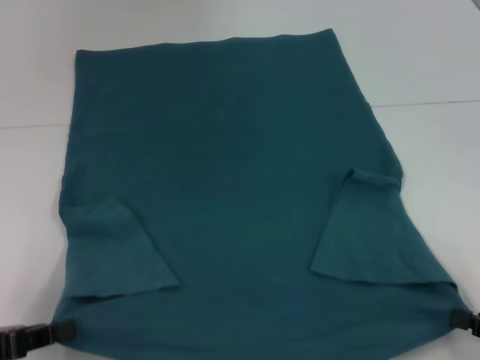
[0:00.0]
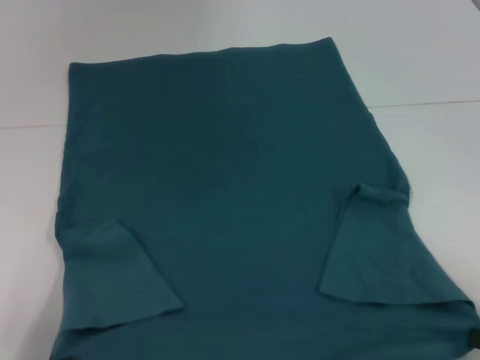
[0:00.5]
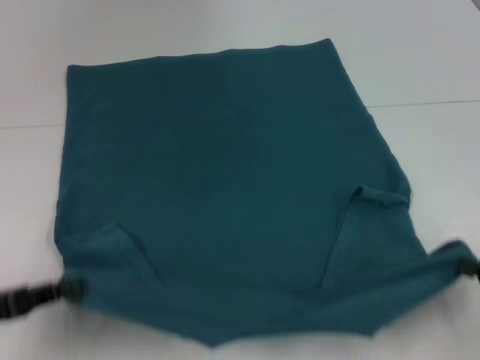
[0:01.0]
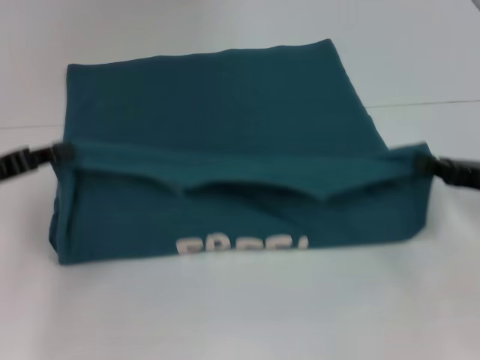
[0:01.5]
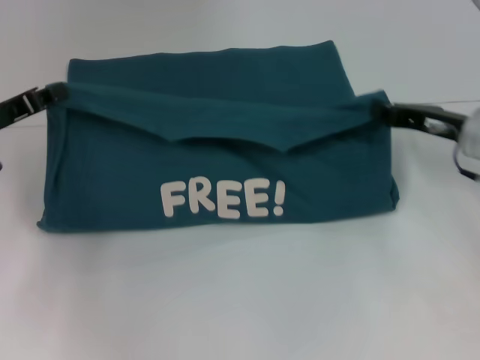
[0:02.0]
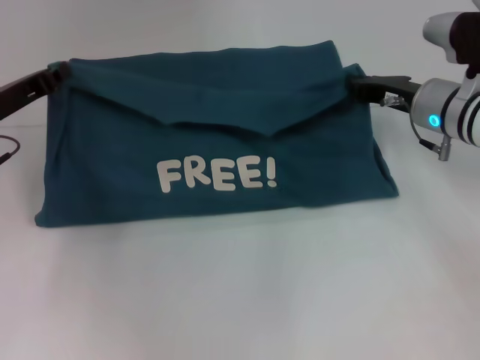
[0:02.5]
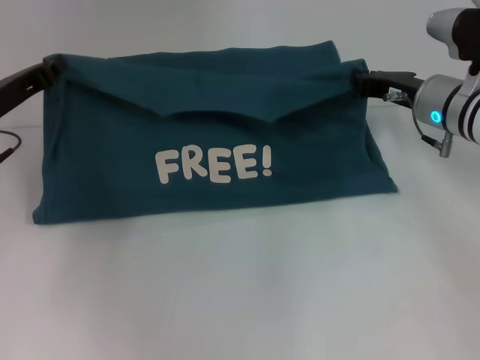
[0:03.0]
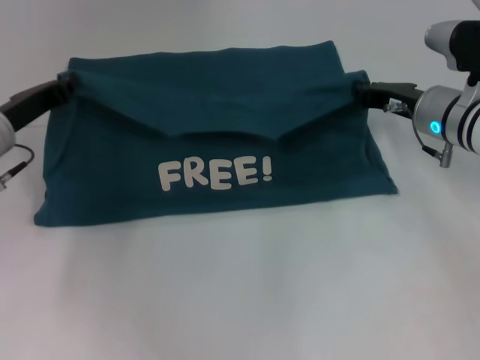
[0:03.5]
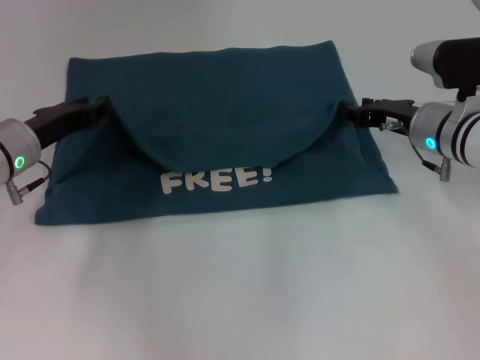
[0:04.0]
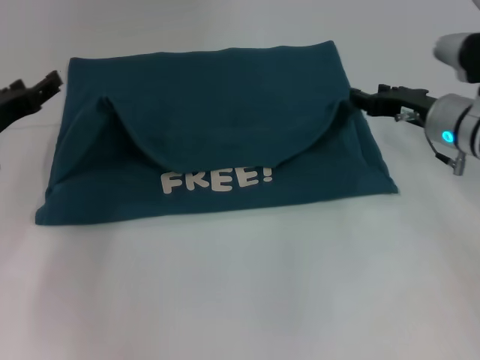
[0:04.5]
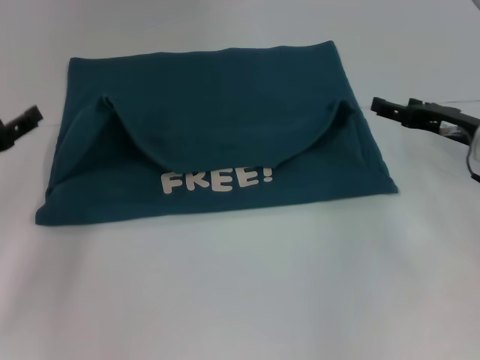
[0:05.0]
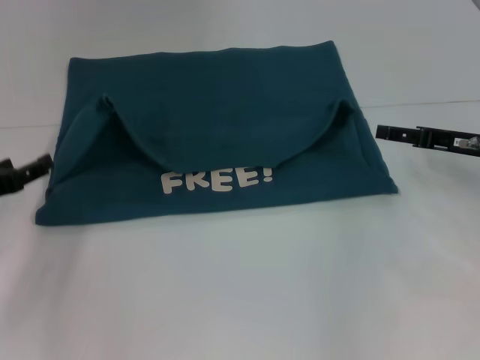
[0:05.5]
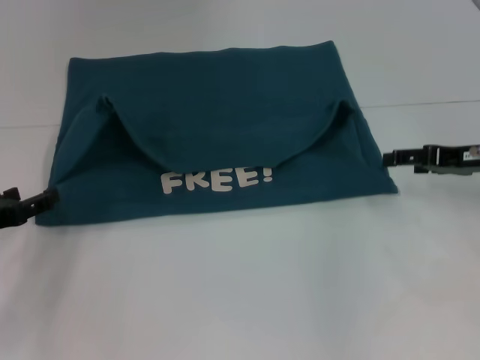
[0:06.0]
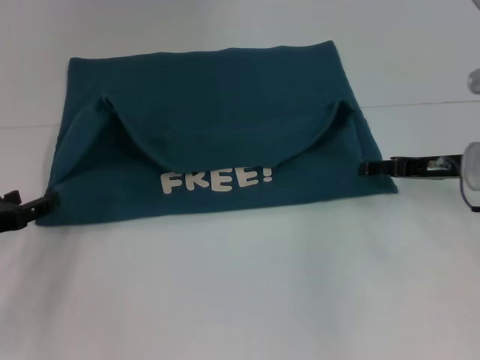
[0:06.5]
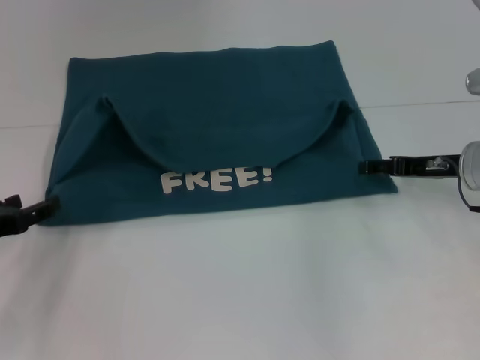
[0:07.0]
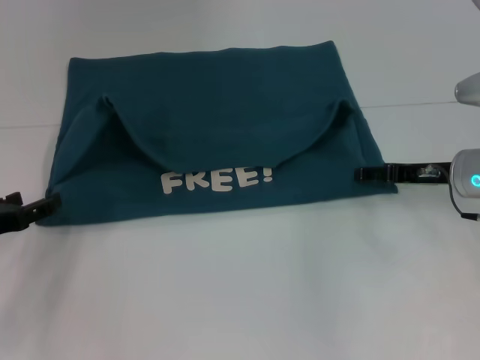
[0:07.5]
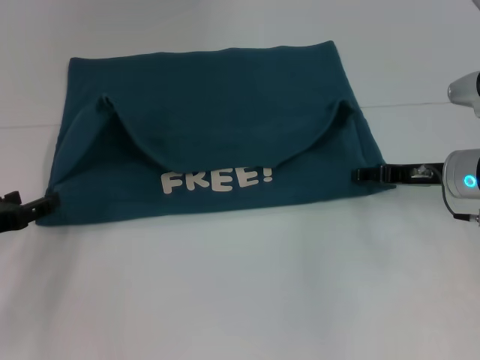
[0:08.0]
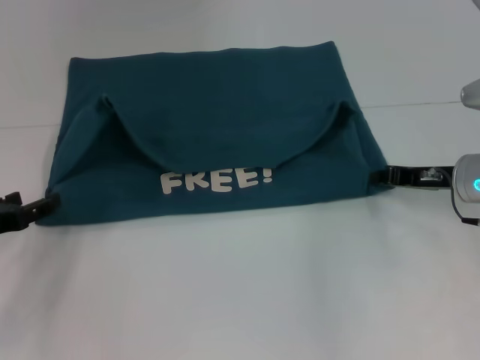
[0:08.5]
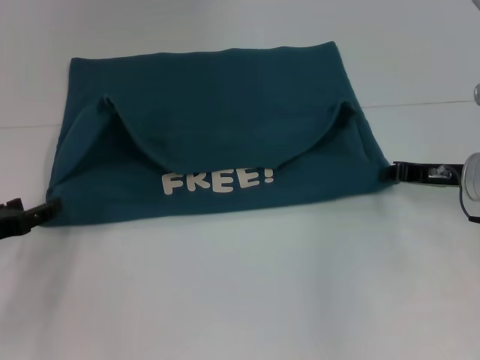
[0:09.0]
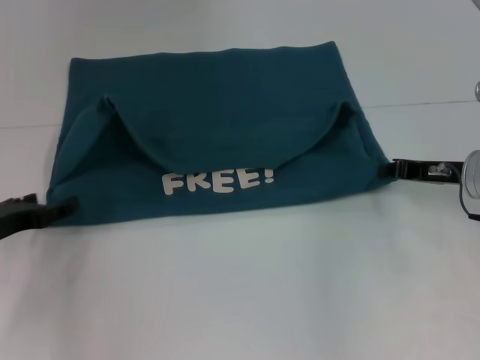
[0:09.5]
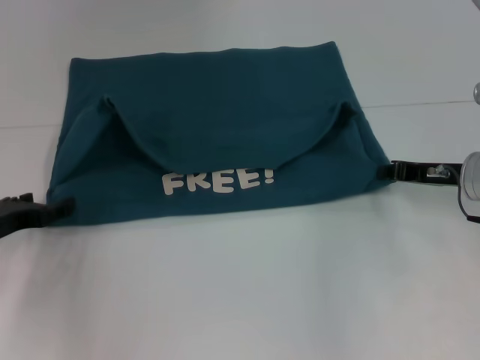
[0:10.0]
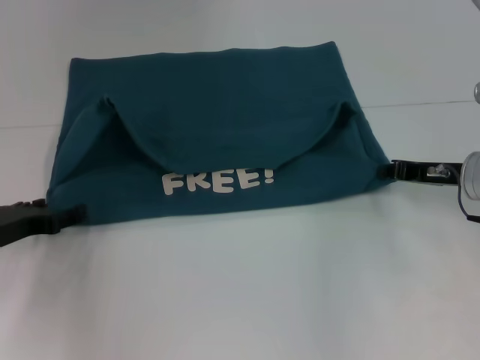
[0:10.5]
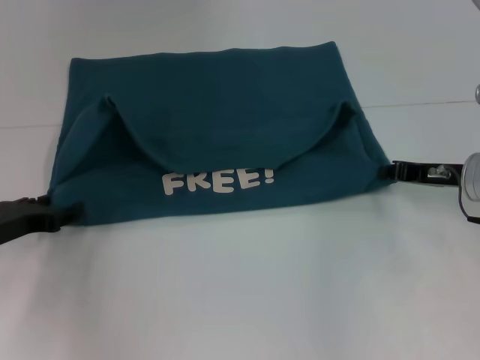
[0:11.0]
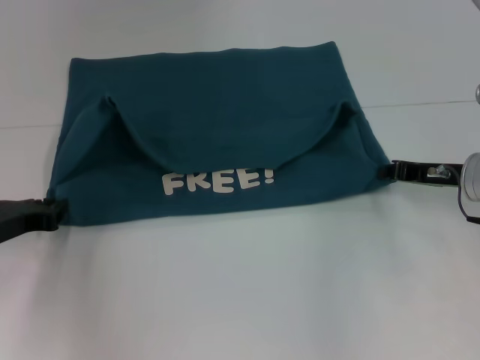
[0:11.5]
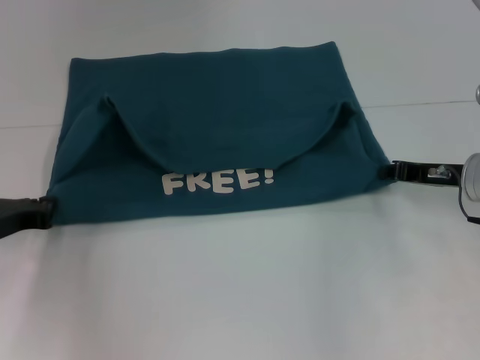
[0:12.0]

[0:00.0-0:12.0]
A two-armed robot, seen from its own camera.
Step, 0:00.0 to 0:04.0: Fold the clothes to the left.
Step, 0:00.0 to 0:04.0: Fold the clothes to the right.
0:00.0 to 0:02.0: The grippers both shift forward by about 20 cm.
0:02.0 to 0:04.0: The right gripper ends up roughly 5 cm from where it was. Meanwhile the left gripper heads to the right, covering about 5 cm.
0:04.0 to 0:06.0: The right gripper travels to the right by approximately 10 cm, and opens. Meanwhile the left gripper goes roughly 15 cm backward and to the left, and opens.
0:06.0 to 0:08.0: The right gripper moves to the left, some 5 cm.
0:08.0 to 0:10.0: The right gripper closes up.

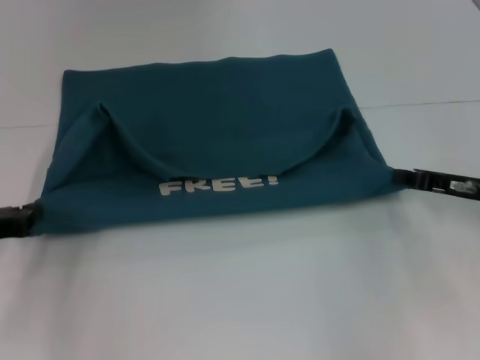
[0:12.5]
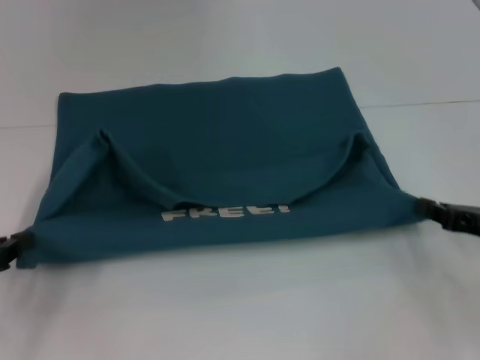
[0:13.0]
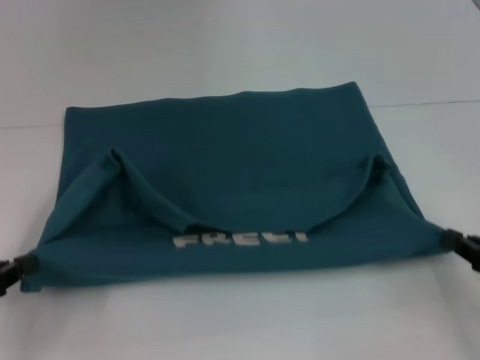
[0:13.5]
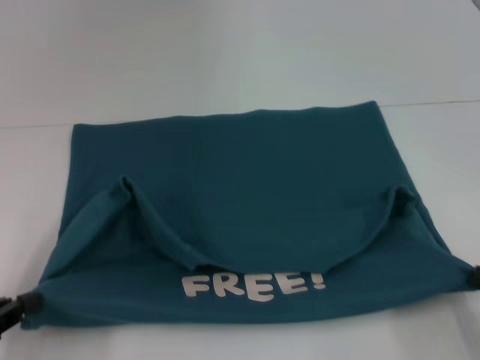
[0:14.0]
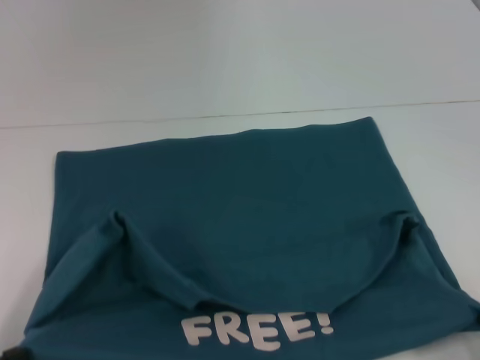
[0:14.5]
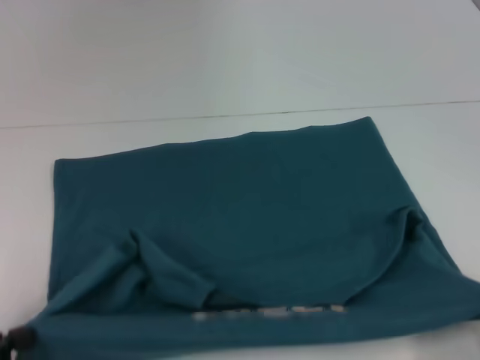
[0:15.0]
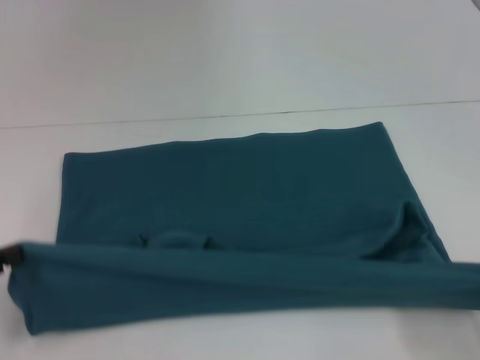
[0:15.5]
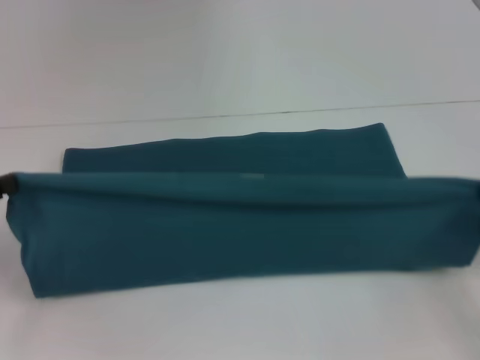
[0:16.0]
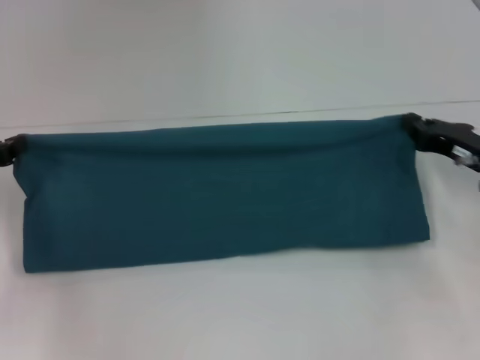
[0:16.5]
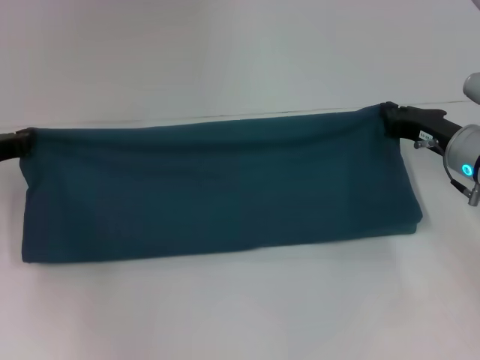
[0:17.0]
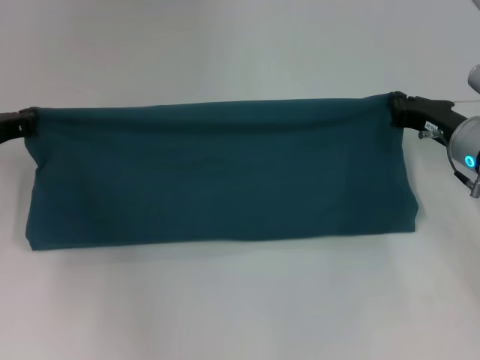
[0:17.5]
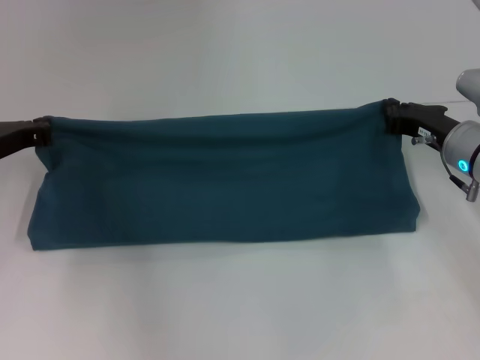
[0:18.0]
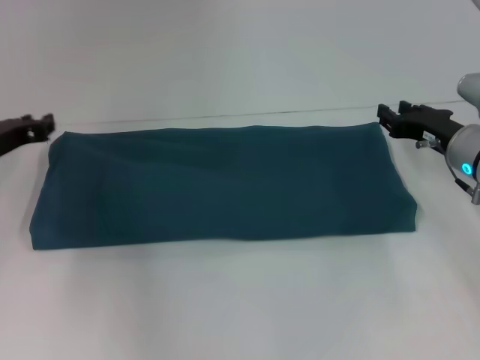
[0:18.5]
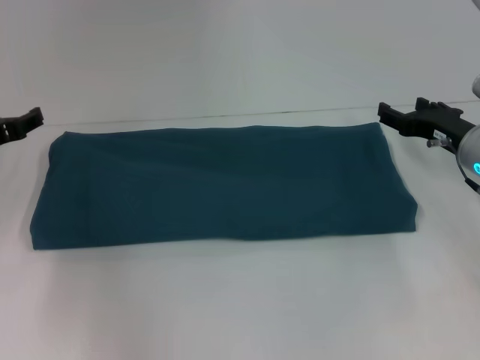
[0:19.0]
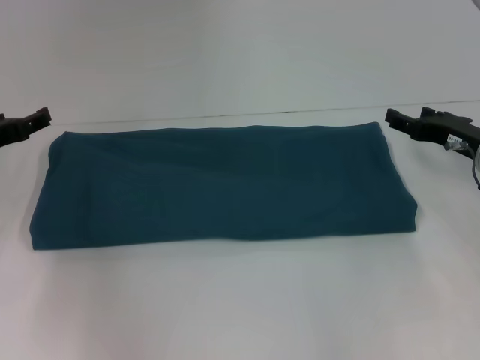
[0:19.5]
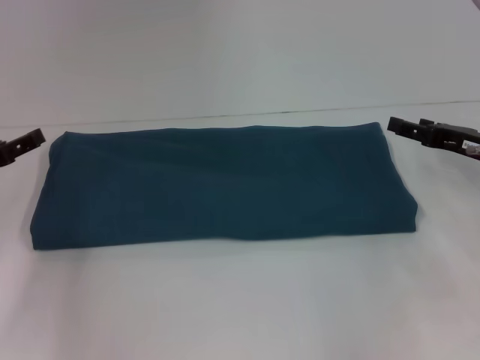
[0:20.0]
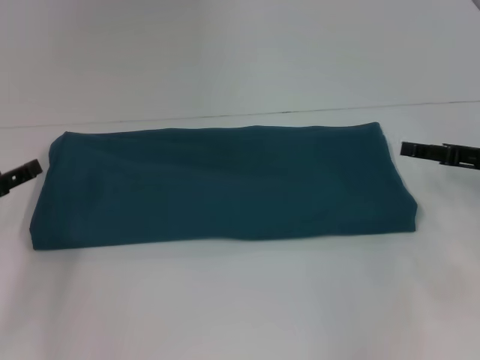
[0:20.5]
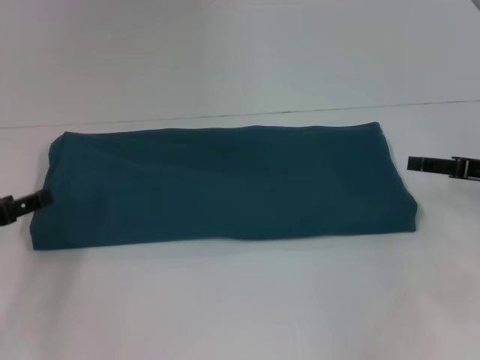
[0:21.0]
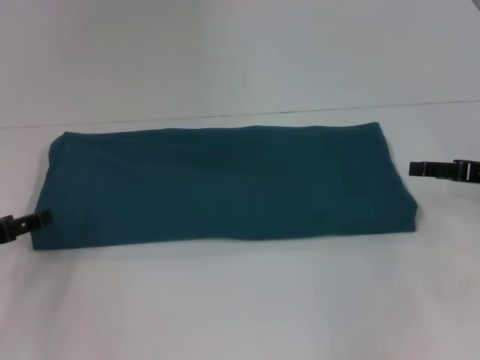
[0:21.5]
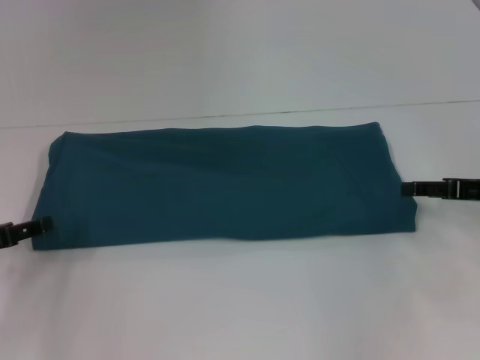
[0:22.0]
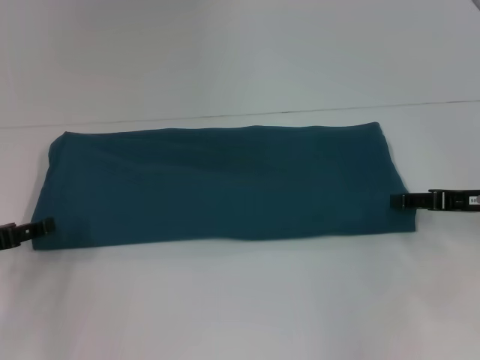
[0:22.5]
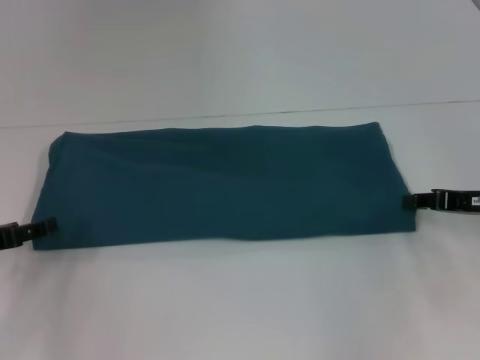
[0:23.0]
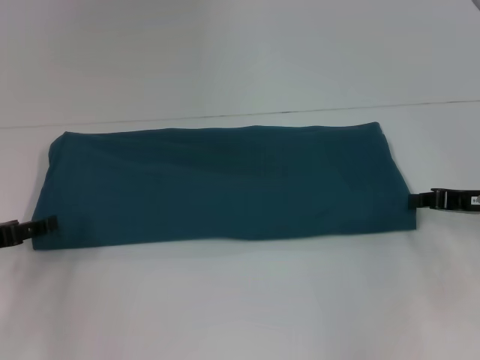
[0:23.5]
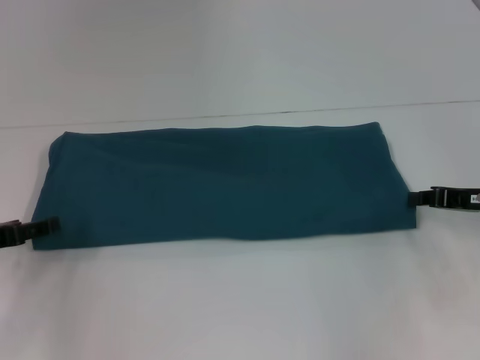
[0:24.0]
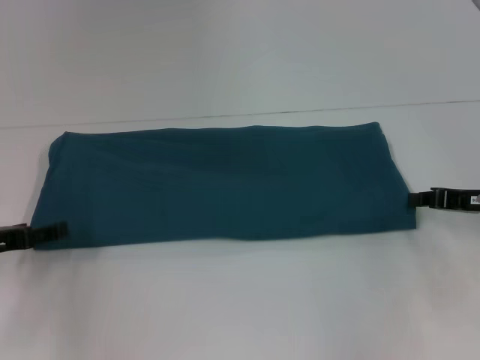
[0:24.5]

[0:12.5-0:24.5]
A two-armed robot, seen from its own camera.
Step, 0:12.5 to 0:14.5: Pull the clothes with your left hand.
Step, 0:12.5 to 0:14.5: Pull the clothes with your right hand.
Step, 0:15.0 to 0:19.0: Fold the clothes to the right.
0:12.5 to 0:14.5: The two grippers go approximately 20 cm backward.
0:14.5 to 0:16.5: Both grippers move forward, roughly 20 cm.
0:16.5 to 0:18.5: The left gripper goes approximately 5 cm to the right; the right gripper shifts by about 5 cm.
0:18.5 to 0:20.5: The right gripper travels to the right by roughly 5 cm, and opens, while the left gripper heads backward and to the left, covering some 10 cm, and opens its fingers.
0:20.5 to 0:22.5: There are only small adjustments of the grippers.

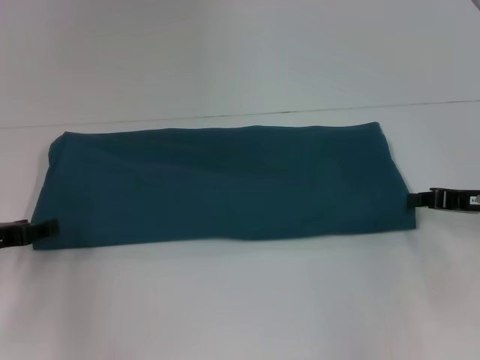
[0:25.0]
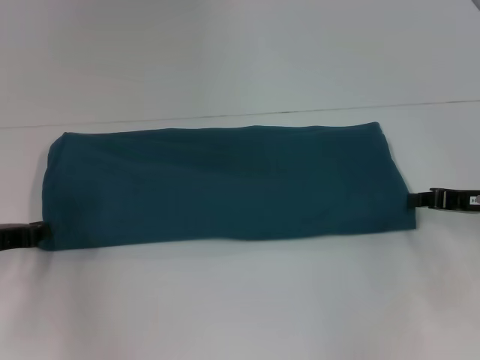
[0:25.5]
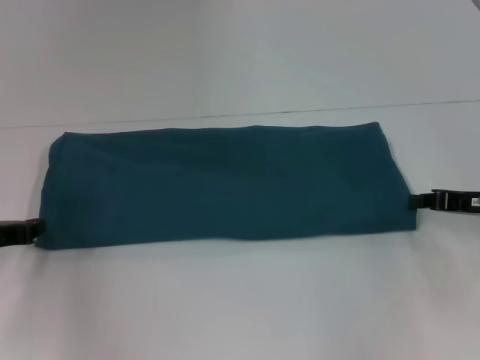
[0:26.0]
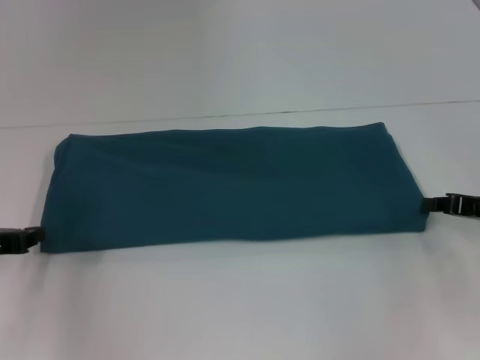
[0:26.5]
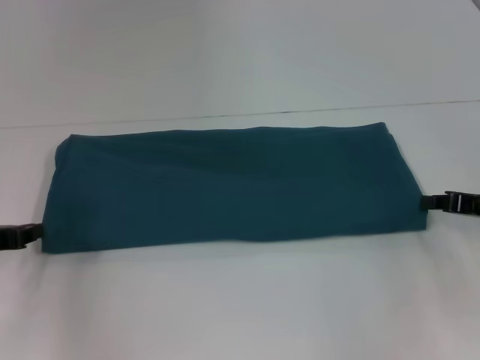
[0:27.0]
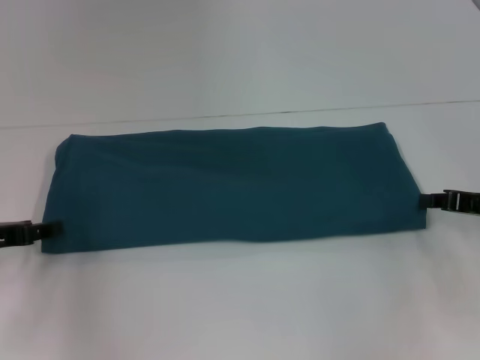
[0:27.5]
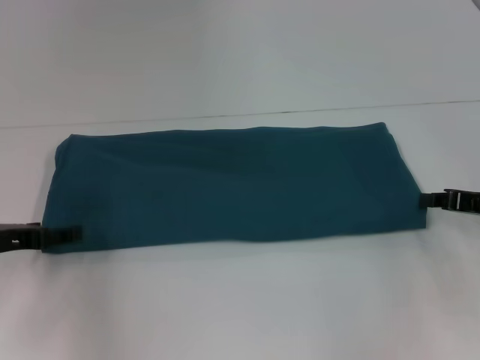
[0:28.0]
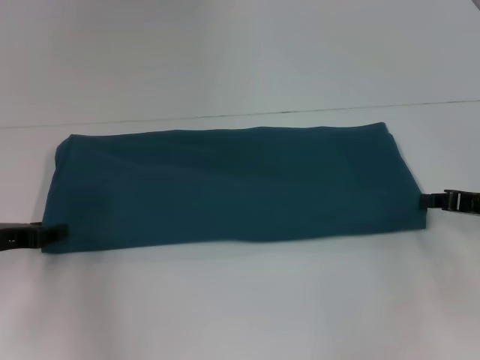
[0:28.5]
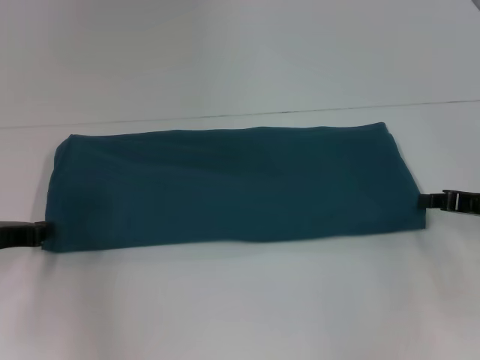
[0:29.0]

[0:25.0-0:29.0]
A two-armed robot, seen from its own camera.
0:25.0 to 0:27.0: The left gripper closes.
